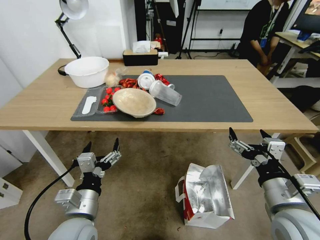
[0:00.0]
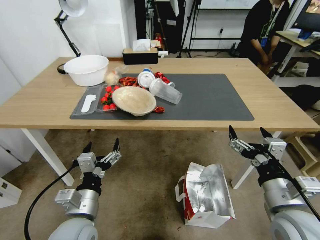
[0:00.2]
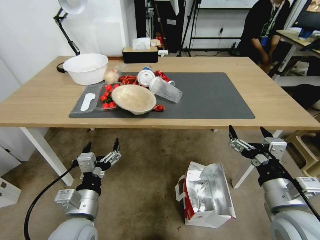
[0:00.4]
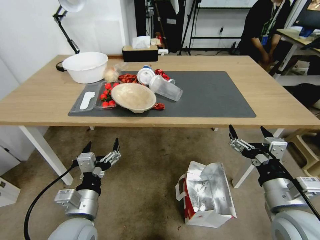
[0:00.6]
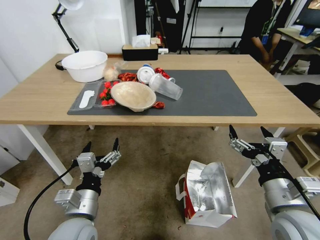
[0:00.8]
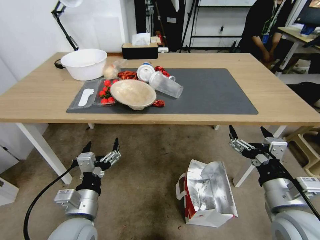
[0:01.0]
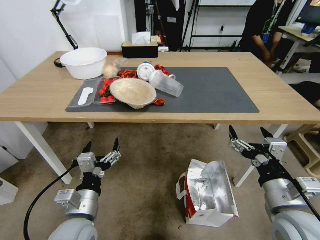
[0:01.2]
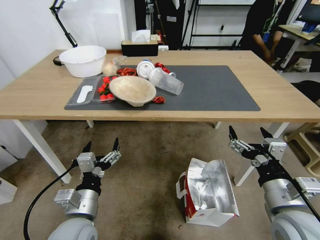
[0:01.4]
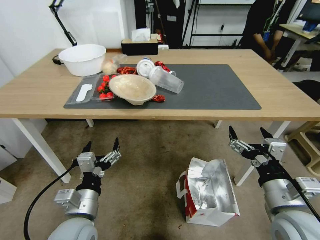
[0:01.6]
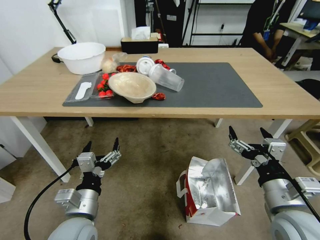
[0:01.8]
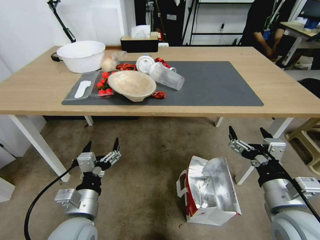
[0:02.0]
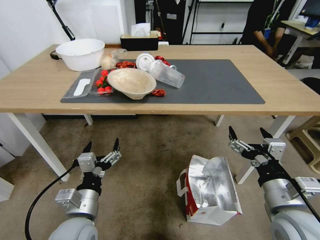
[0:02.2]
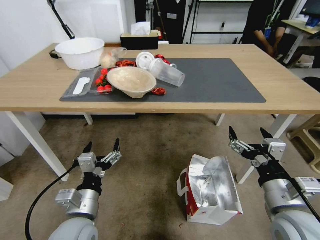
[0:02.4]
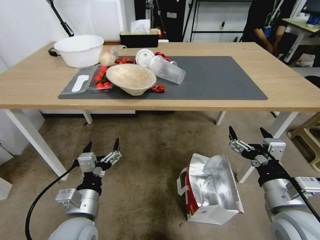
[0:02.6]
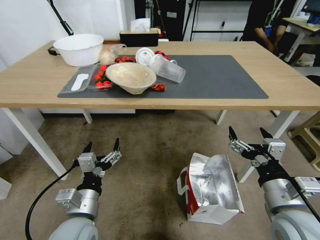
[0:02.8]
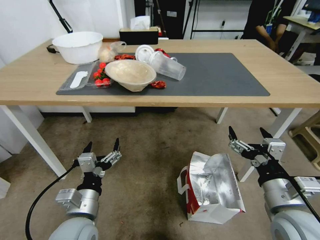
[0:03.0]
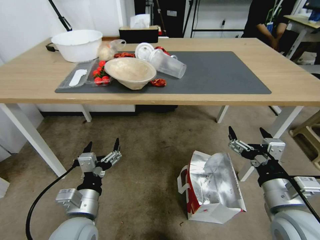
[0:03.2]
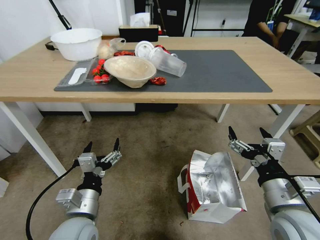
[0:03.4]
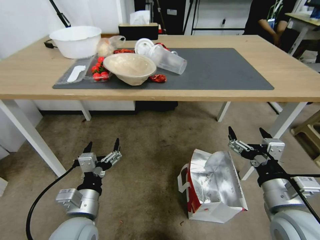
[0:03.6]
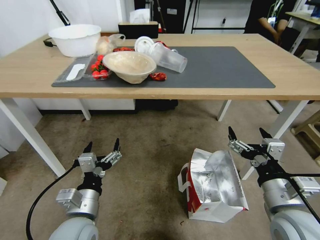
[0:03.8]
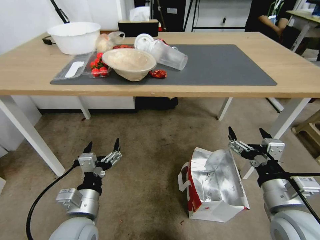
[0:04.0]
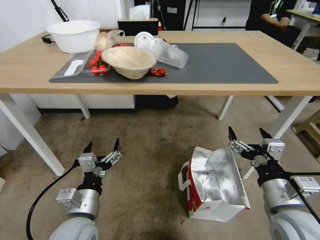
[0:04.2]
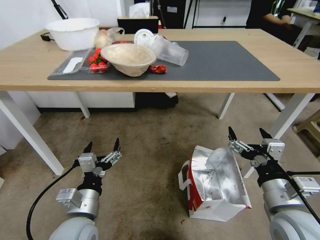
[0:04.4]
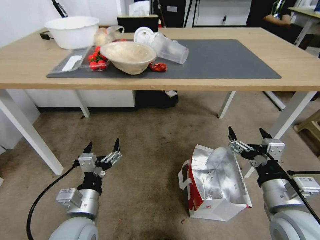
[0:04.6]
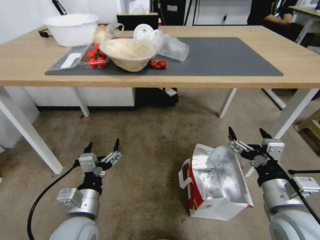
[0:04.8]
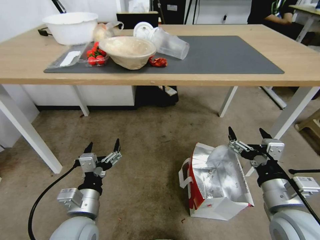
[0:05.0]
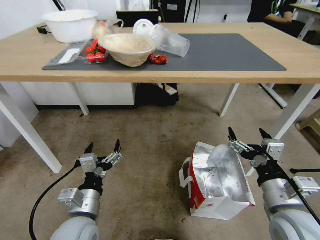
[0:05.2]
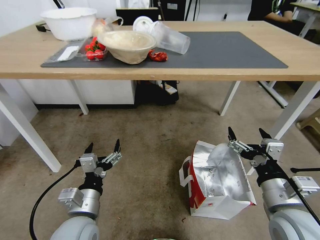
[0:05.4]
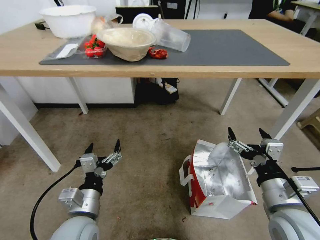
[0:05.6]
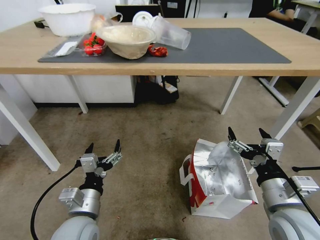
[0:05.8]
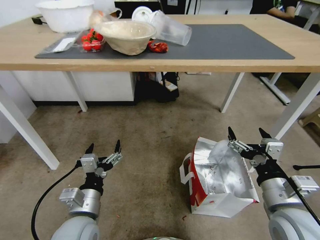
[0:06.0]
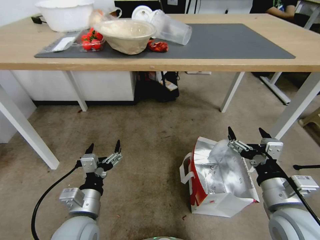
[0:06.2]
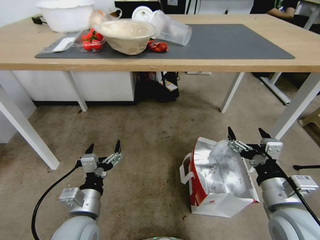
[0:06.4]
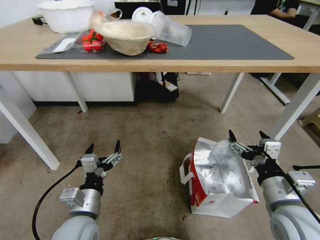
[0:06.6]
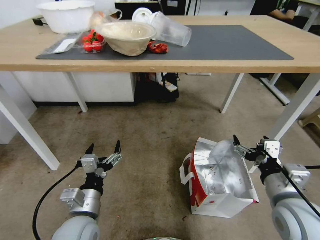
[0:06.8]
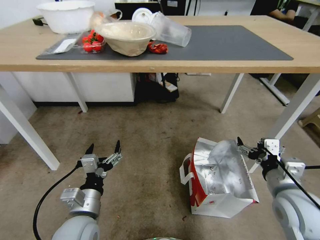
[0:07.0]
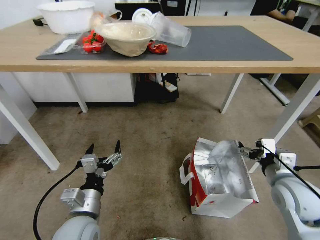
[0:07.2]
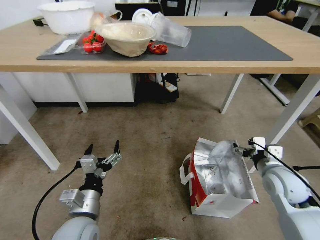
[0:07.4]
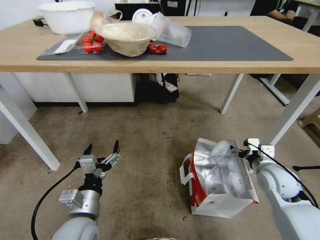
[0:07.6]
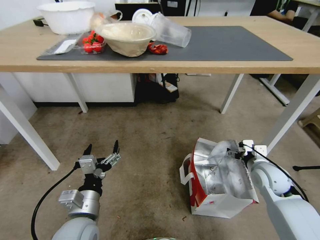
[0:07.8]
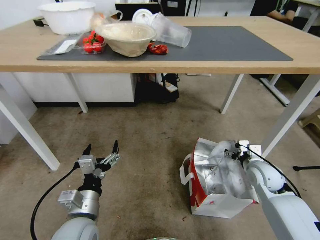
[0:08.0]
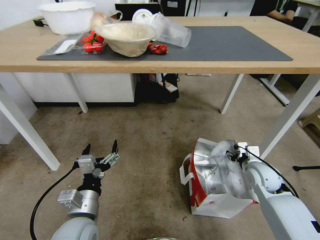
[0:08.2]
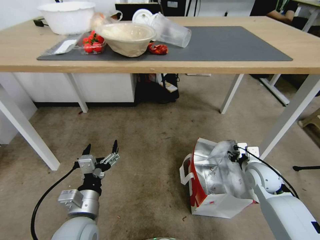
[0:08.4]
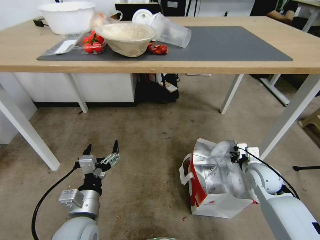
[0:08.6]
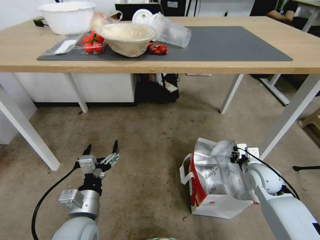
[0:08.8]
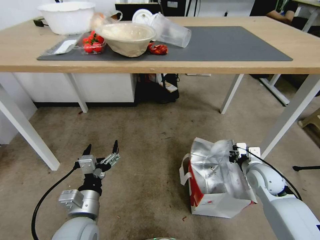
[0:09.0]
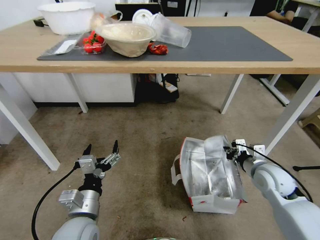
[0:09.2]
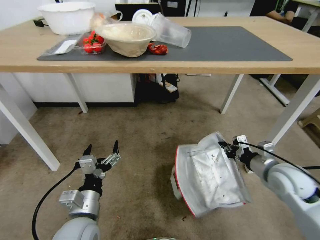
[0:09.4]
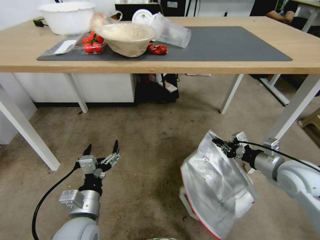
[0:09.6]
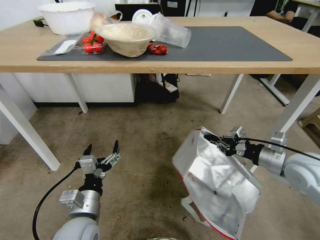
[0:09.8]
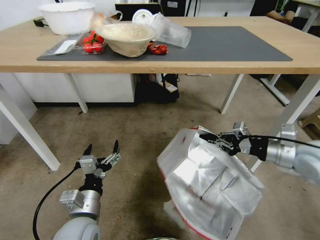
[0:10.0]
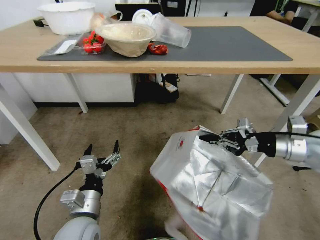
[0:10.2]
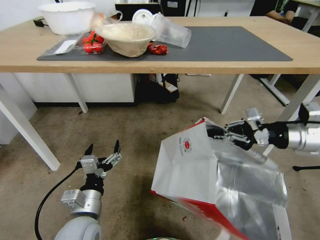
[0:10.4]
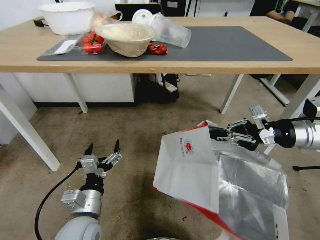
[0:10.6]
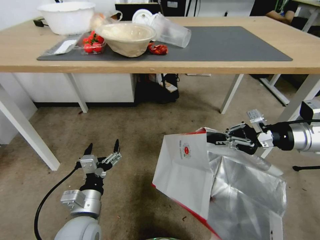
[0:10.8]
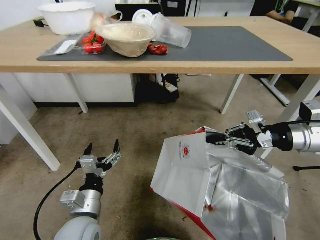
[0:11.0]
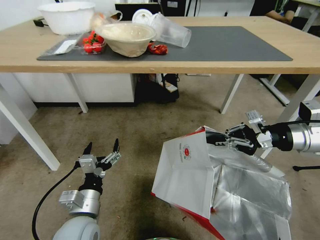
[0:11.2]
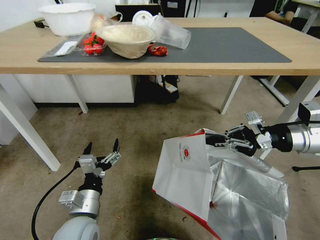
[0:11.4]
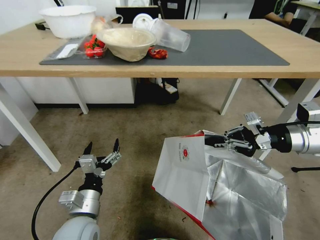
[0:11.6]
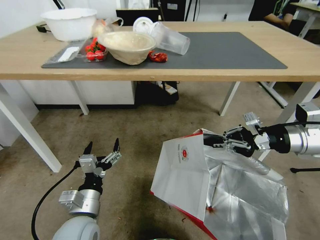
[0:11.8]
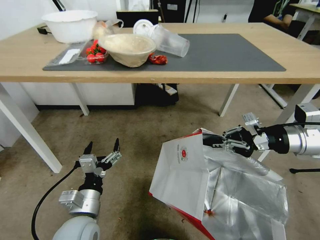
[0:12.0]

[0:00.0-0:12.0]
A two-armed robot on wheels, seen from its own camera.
Task of the whole recording: Pick up the food delivery bag from the floor and place it on the table.
0:06.0 to 0:07.6: The right gripper is displaced forward, to the right and downward by approximately 15 cm.
0:07.6 to 0:09.0: The right gripper travels downward by some 5 cm, and closes up.
0:09.0 to 0:10.4: The right gripper heads upward, covering roughly 25 cm.

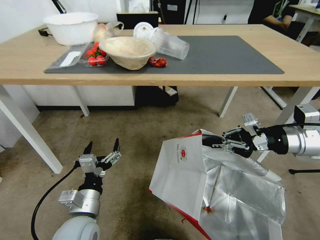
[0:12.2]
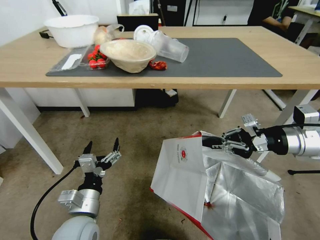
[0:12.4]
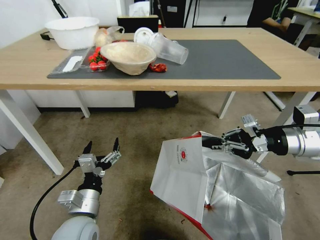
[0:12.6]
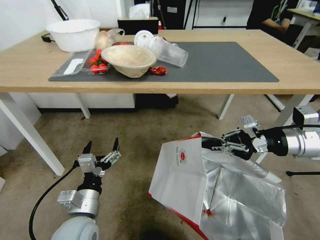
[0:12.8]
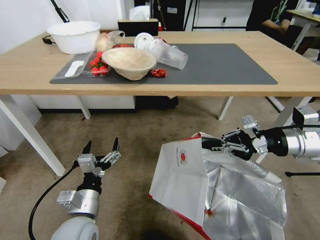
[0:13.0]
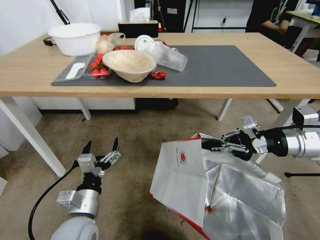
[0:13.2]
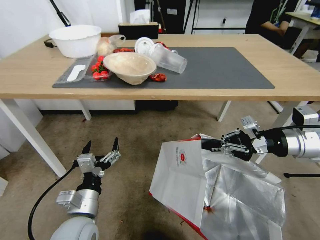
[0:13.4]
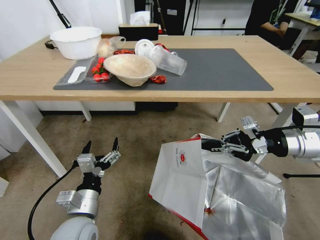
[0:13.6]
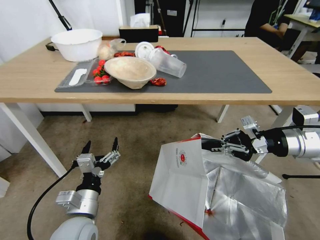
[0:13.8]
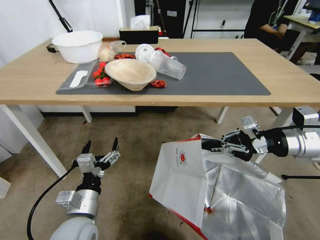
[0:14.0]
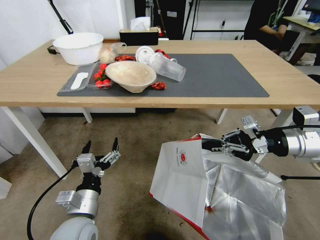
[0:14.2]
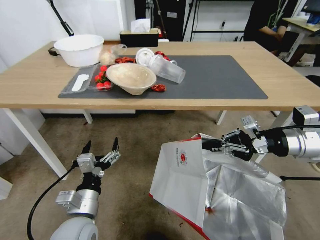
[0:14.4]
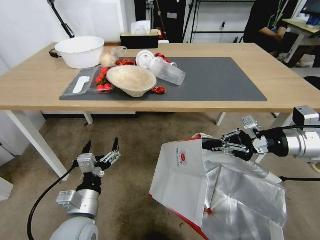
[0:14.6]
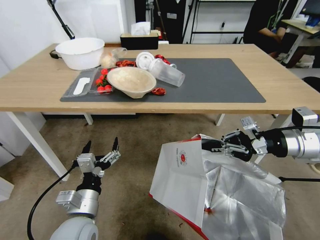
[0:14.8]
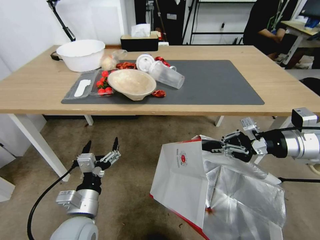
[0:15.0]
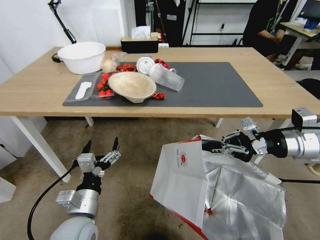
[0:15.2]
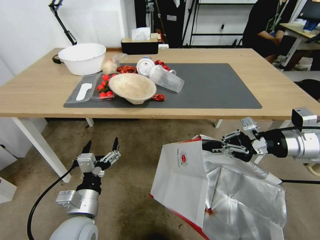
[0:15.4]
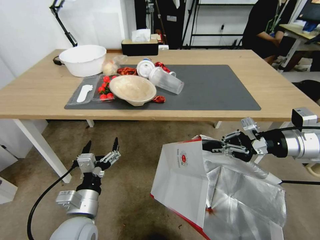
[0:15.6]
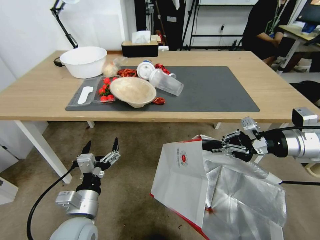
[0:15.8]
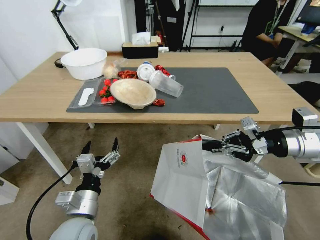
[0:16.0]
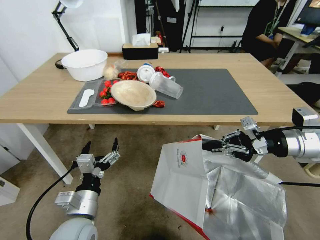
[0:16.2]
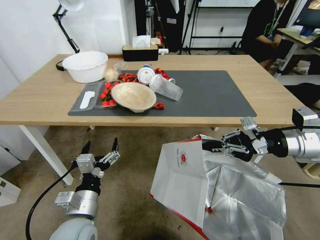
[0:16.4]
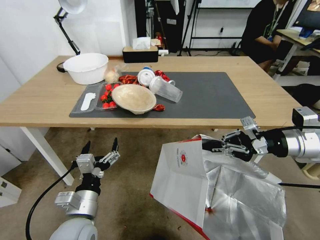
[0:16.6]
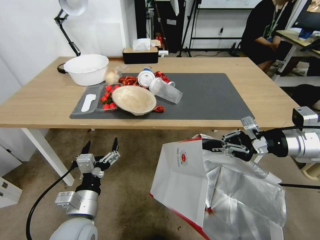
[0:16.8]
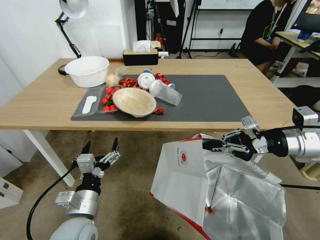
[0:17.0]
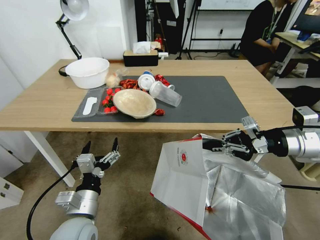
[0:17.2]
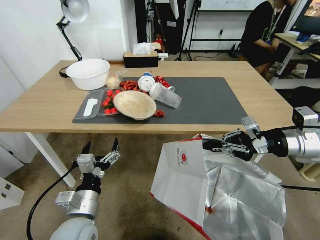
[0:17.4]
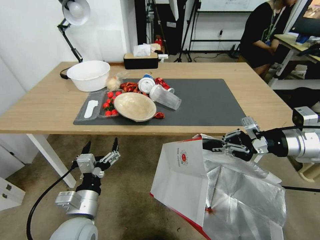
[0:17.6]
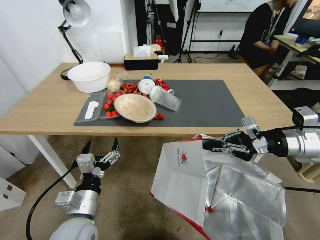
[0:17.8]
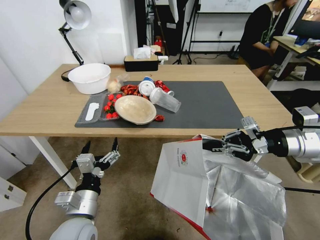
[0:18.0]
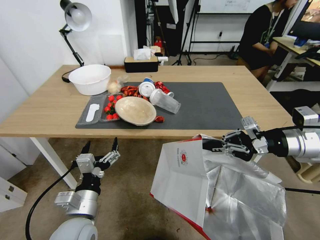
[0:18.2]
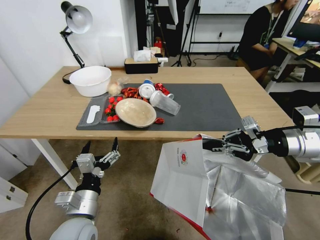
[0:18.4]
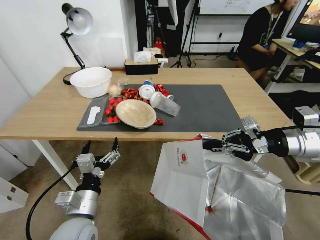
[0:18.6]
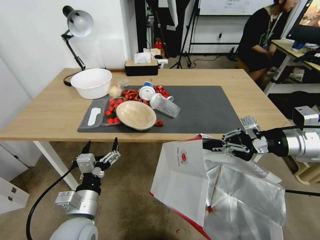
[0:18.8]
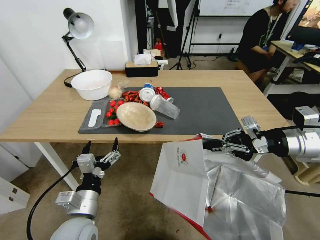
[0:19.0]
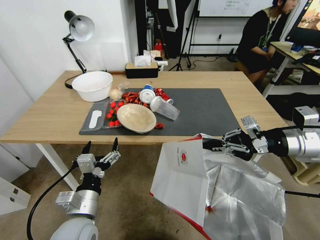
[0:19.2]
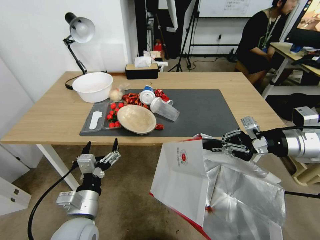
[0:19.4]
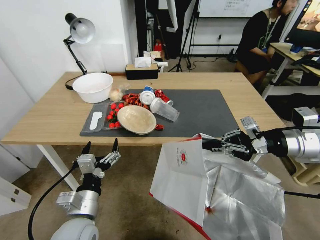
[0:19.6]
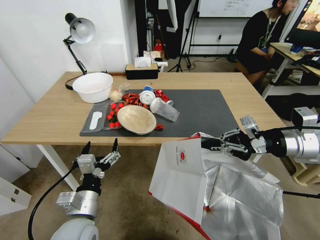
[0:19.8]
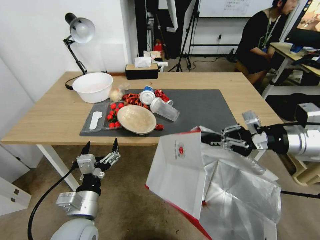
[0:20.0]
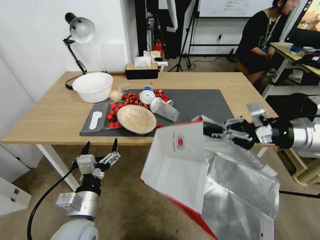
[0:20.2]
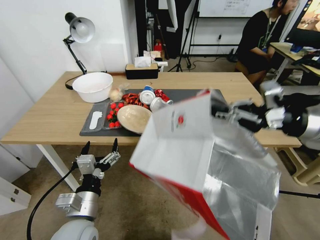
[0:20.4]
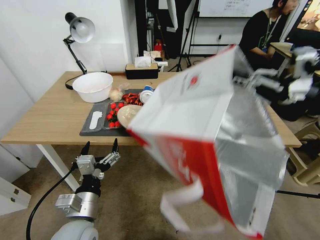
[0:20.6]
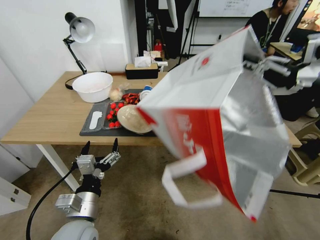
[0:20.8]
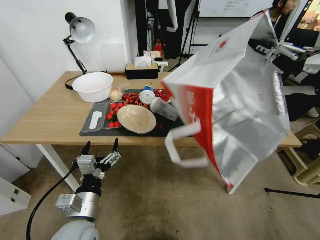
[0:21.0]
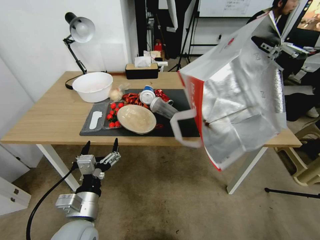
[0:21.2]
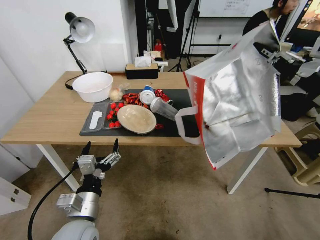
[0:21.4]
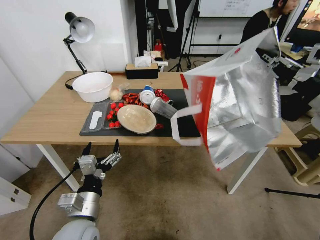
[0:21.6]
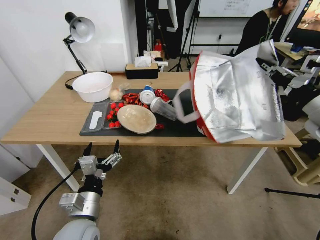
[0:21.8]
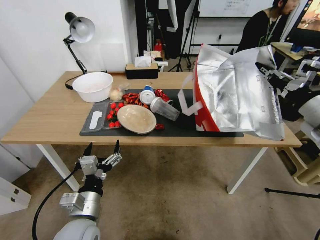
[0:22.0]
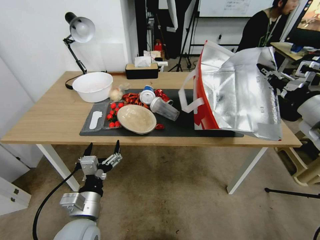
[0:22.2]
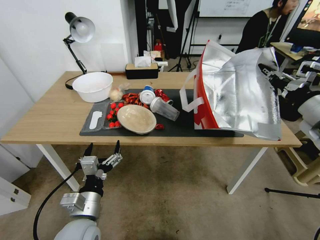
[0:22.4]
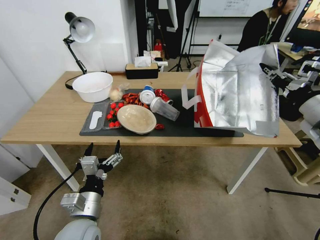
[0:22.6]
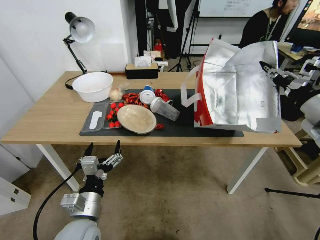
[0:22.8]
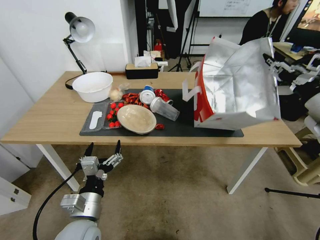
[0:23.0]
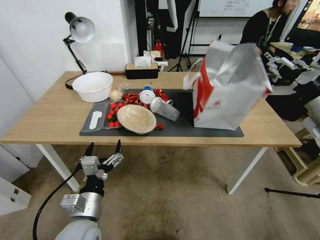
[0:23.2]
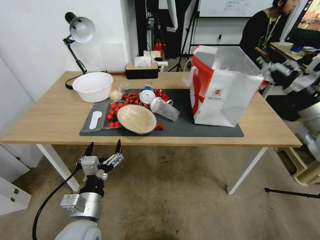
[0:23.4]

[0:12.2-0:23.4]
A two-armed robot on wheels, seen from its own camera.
Task of the whole recording: Pick up the food delivery bag from the floor and place it on the table.
0:21.8 to 0:23.4: The right gripper opens.
